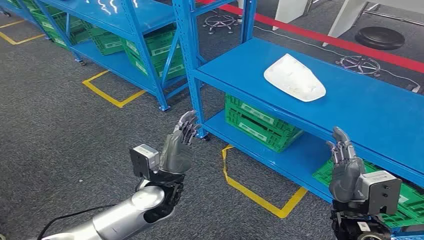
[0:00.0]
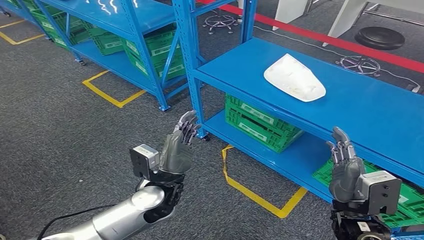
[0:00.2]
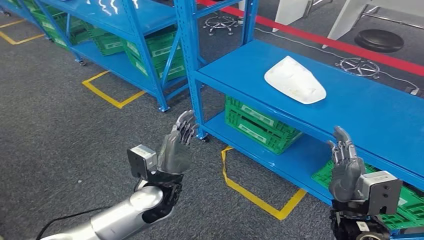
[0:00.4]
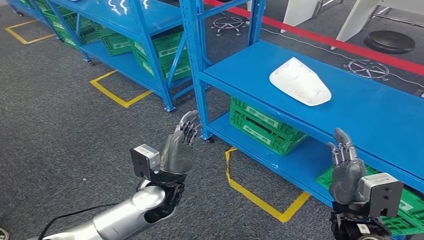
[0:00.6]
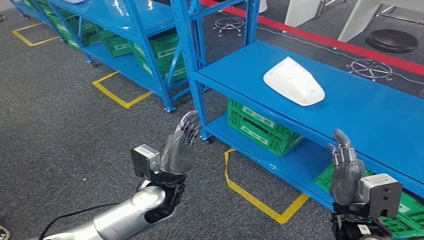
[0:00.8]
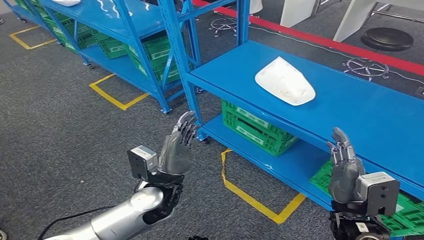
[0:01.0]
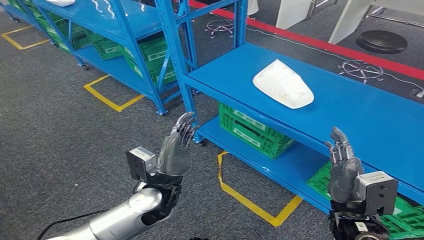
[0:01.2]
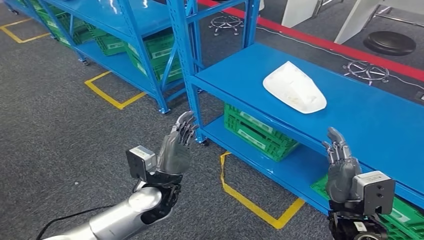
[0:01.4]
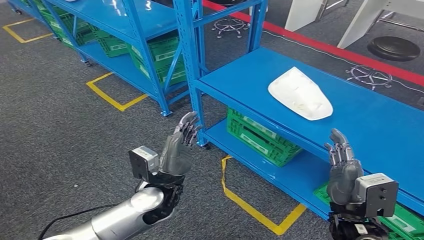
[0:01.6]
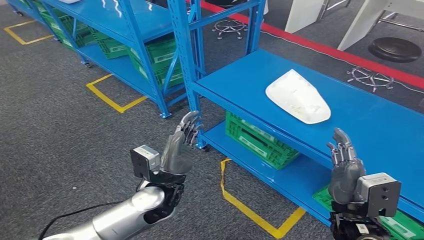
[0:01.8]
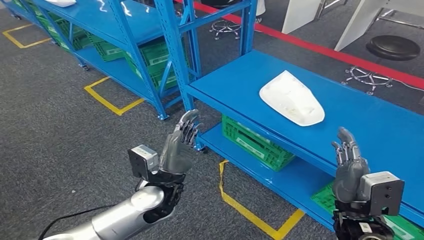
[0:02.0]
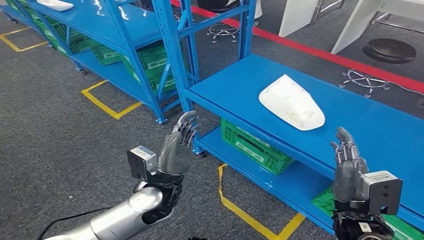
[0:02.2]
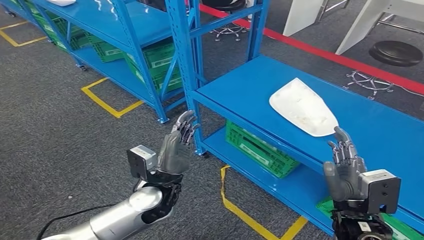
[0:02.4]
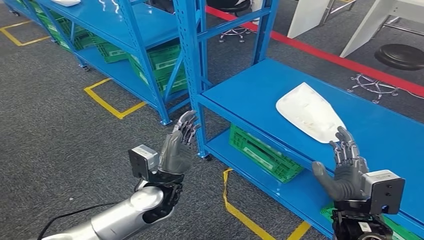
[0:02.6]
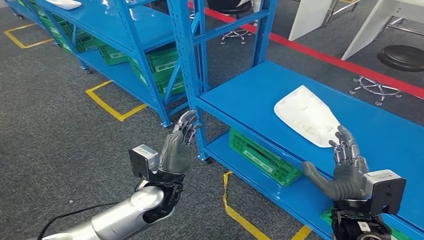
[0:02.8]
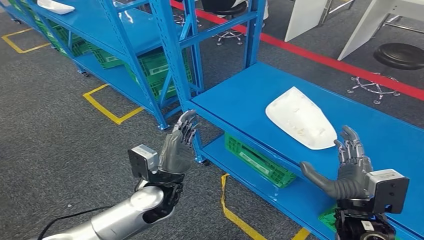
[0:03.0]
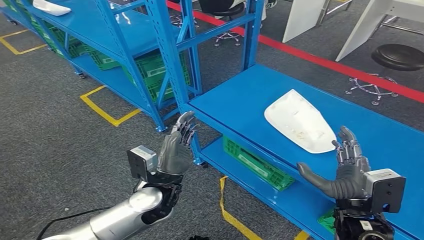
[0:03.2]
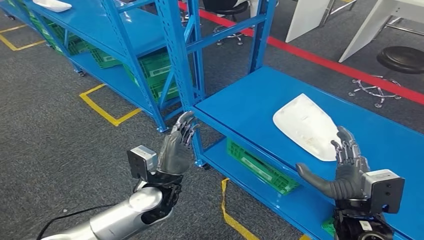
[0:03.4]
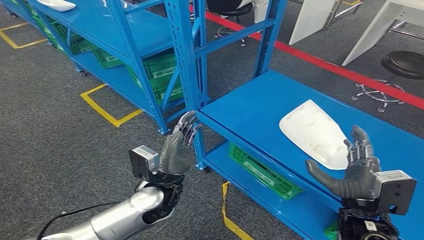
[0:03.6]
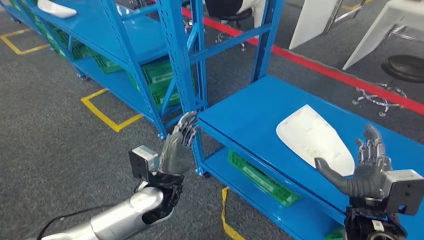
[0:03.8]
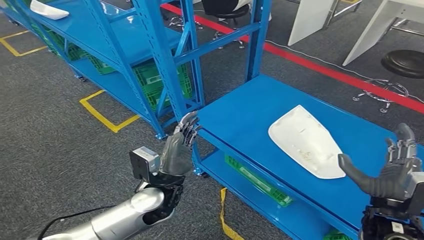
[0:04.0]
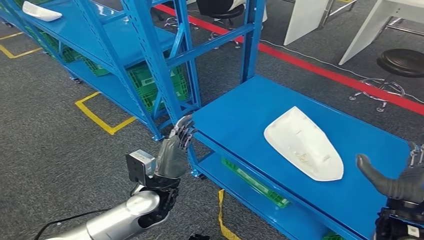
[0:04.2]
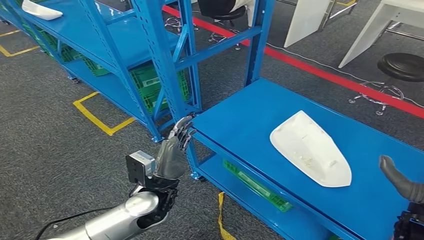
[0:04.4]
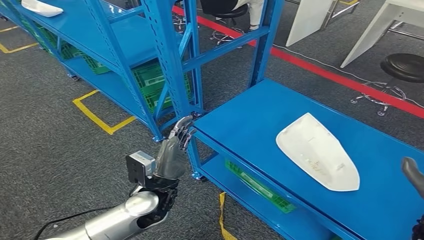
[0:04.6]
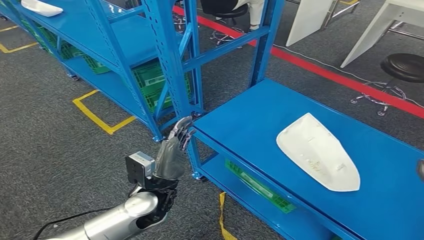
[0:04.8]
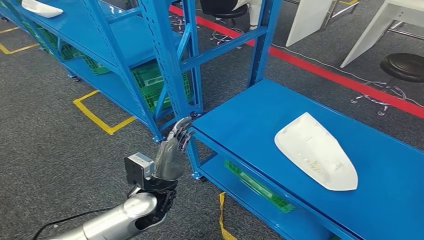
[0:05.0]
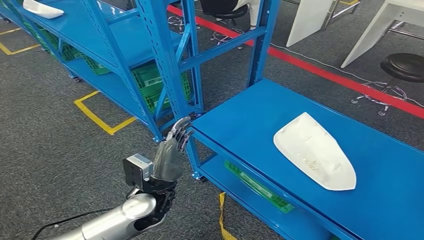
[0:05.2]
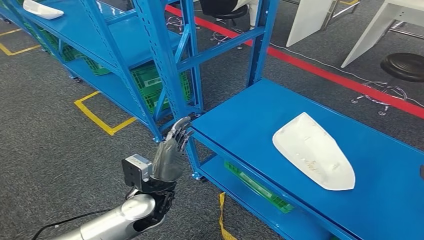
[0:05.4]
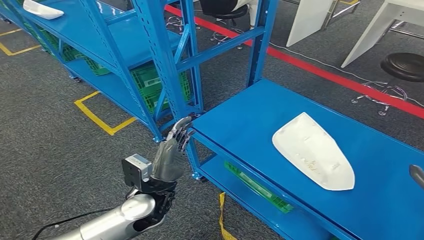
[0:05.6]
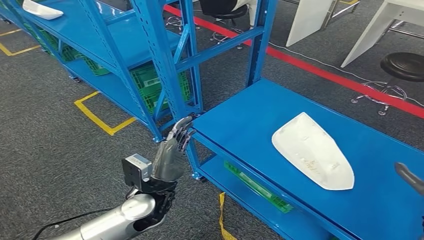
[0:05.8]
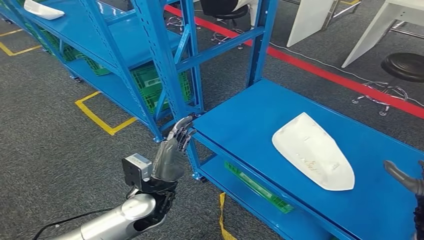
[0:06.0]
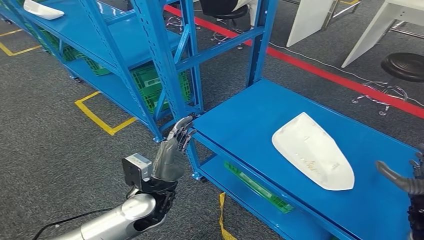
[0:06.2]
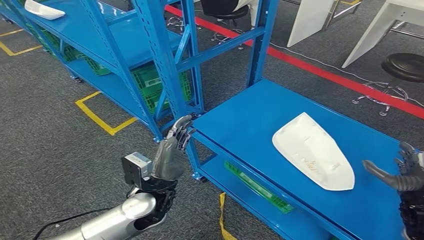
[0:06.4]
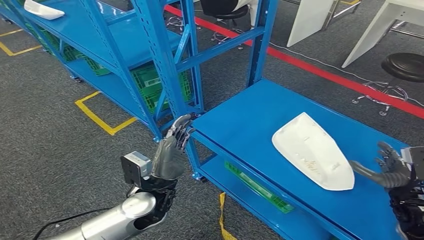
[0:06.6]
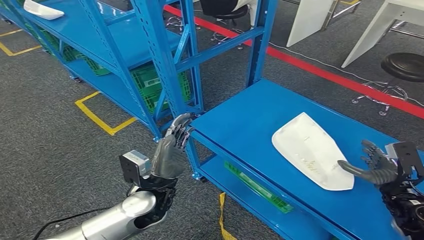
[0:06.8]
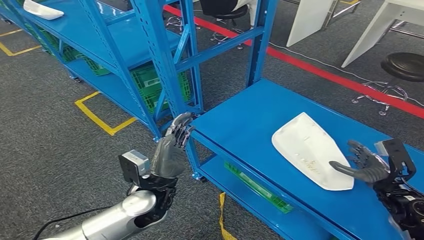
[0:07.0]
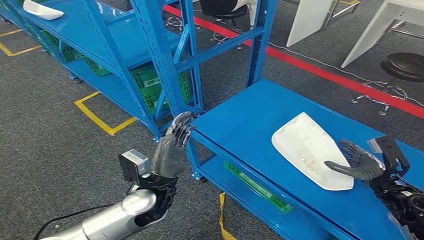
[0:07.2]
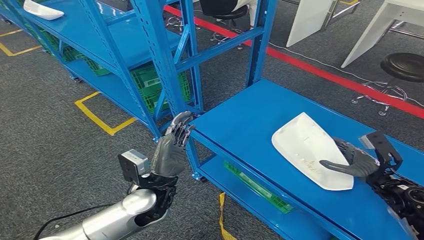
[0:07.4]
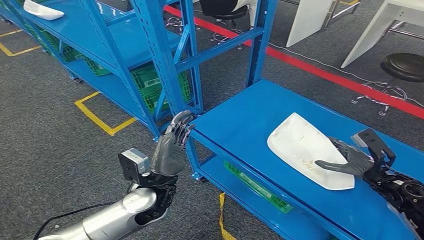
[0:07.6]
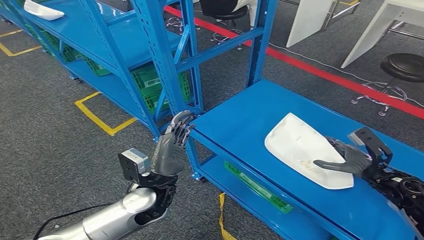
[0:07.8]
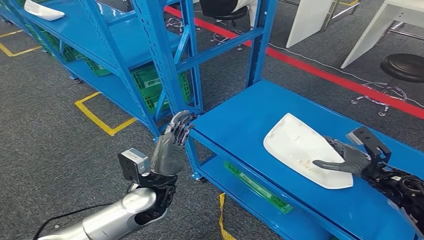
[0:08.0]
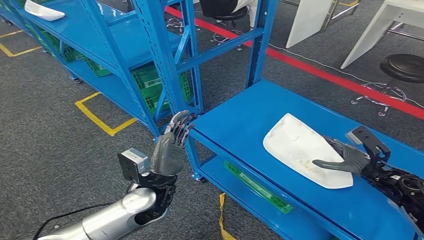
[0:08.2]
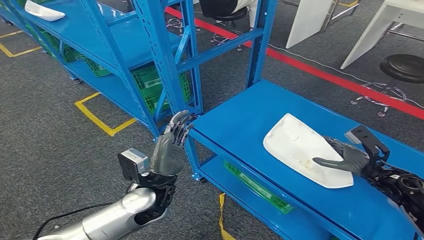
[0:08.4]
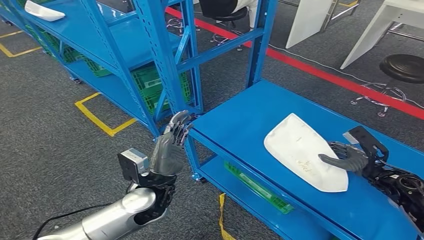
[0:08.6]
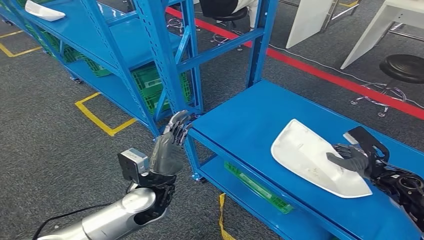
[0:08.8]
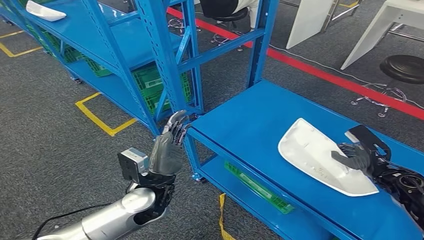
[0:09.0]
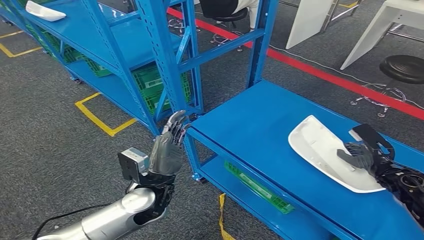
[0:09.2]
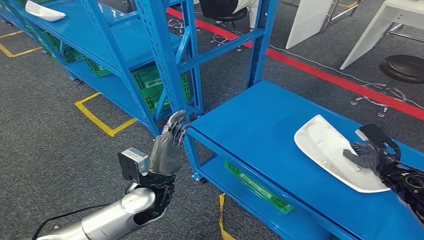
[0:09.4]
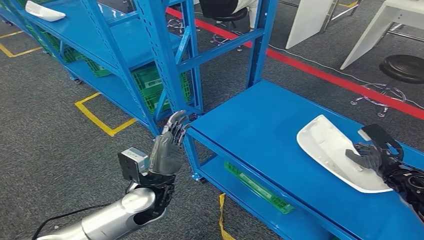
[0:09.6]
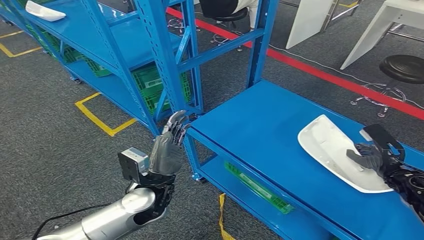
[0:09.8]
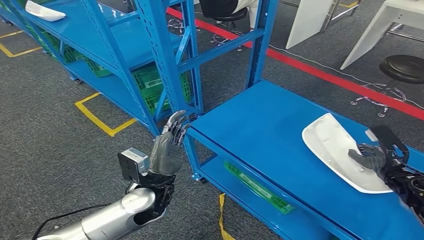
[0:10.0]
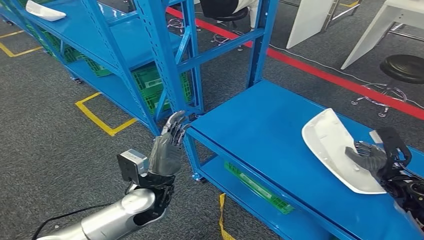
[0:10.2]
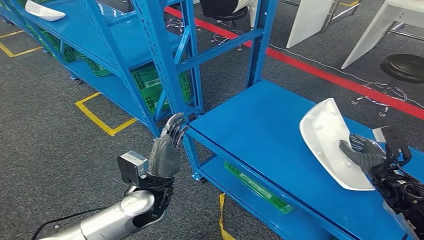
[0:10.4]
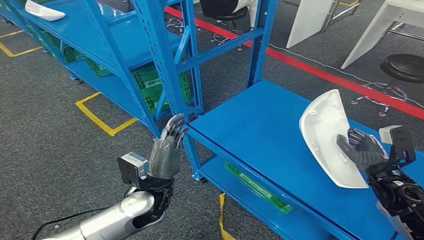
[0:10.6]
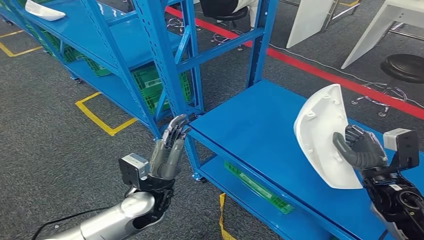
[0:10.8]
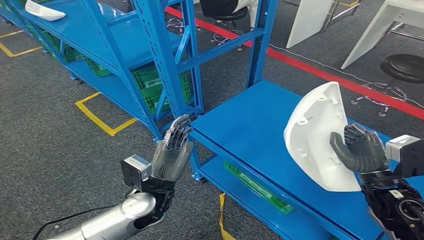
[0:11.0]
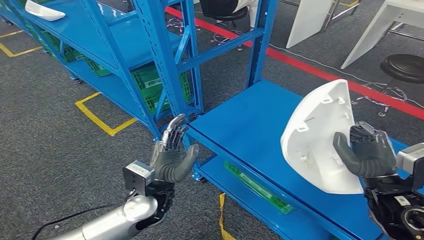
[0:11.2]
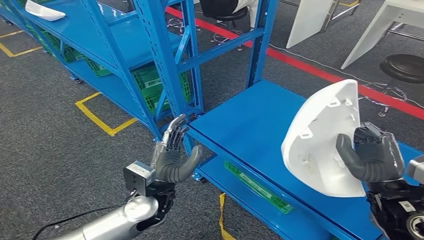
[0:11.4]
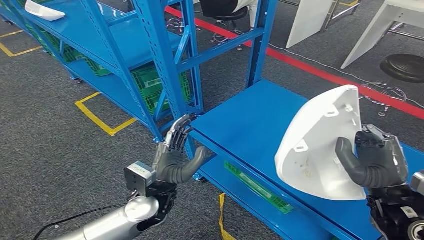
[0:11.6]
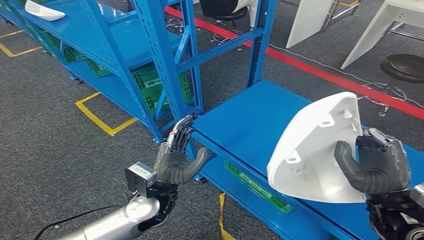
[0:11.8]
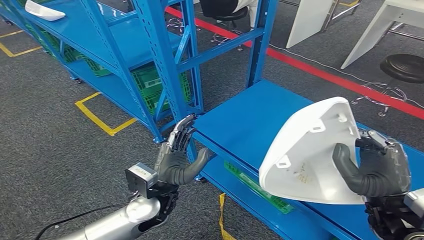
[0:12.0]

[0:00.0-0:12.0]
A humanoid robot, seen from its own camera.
Step, 0:00.0 to 0:09.2: Pick up the small component from the shelf.
0:04.4 to 0:06.0: The right hand shifts roughly 10 cm to the right and downward.
0:06.0 to 0:07.6: The right hand travels forward by some 10 cm.
0:07.6 to 0:09.0: The hands make only small movements.
0:10.4 to 0:12.0: The right hand travels backward, upward and to the left by approximately 20 cm.

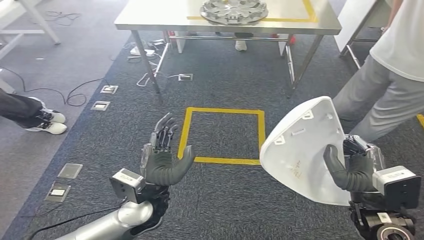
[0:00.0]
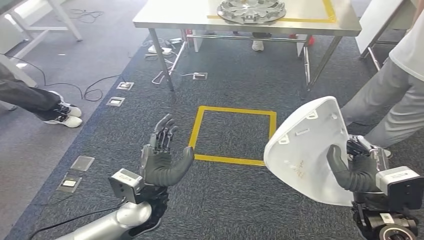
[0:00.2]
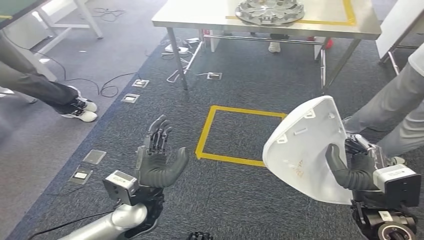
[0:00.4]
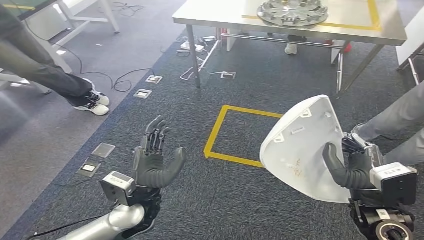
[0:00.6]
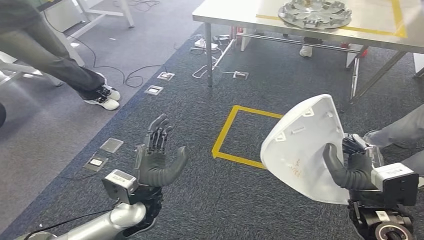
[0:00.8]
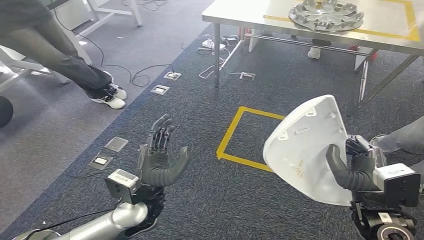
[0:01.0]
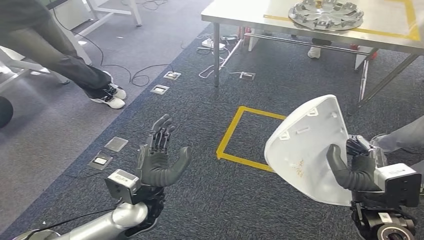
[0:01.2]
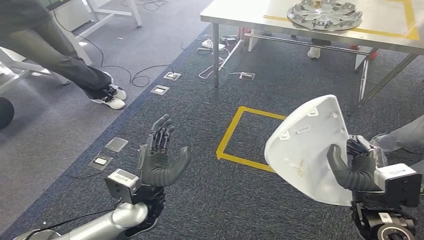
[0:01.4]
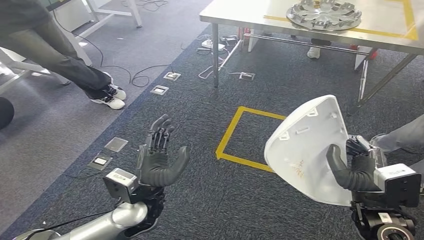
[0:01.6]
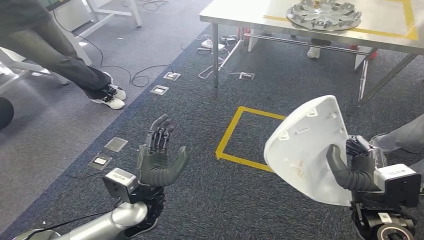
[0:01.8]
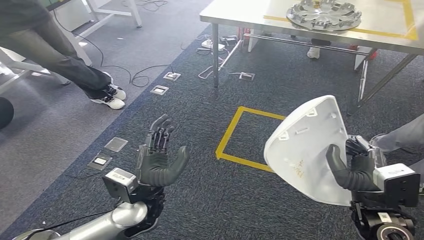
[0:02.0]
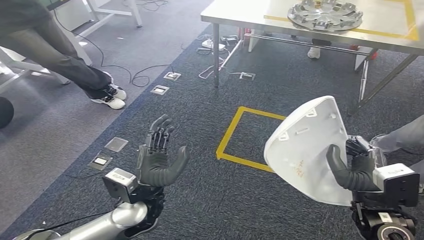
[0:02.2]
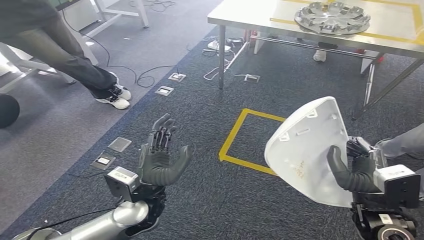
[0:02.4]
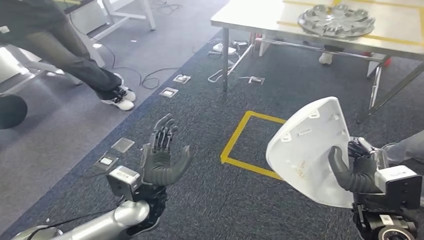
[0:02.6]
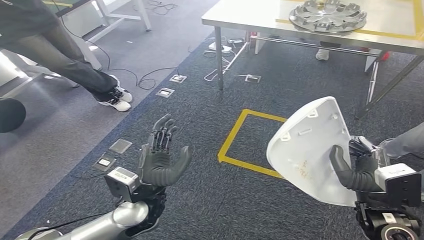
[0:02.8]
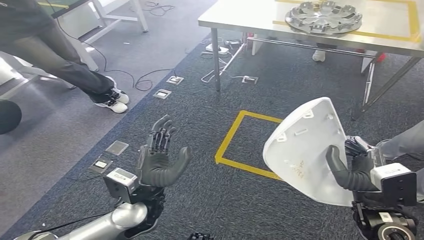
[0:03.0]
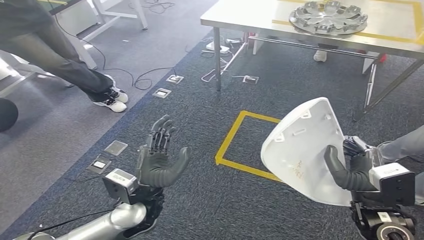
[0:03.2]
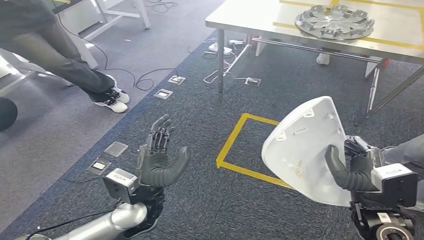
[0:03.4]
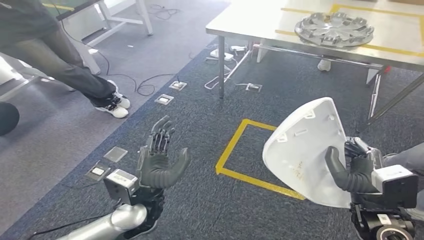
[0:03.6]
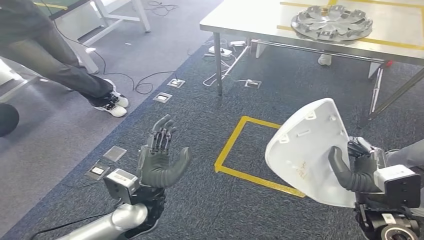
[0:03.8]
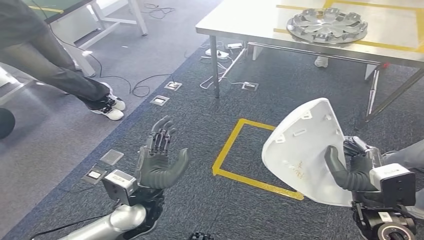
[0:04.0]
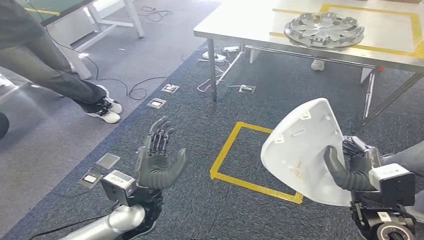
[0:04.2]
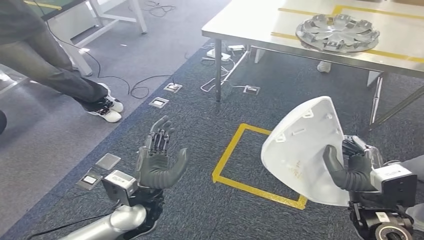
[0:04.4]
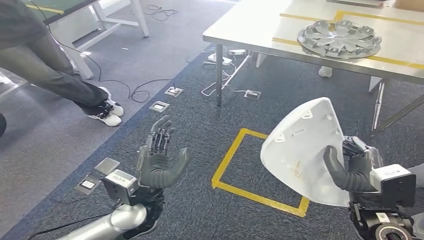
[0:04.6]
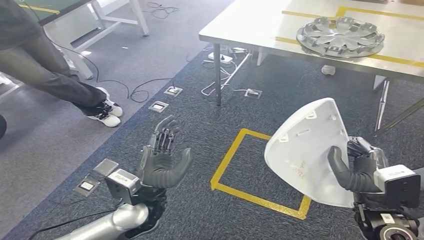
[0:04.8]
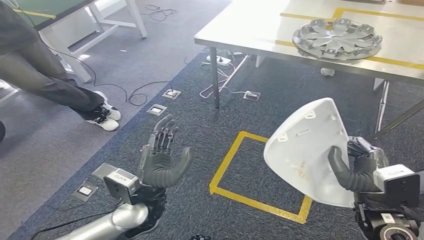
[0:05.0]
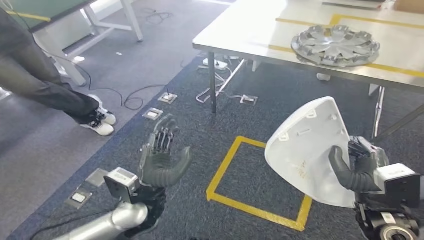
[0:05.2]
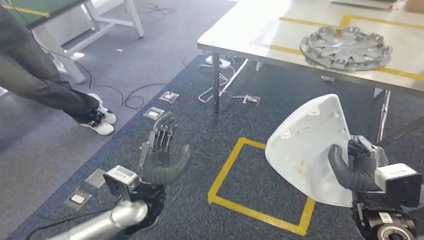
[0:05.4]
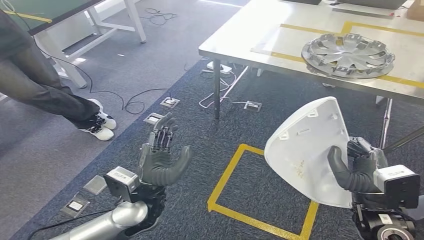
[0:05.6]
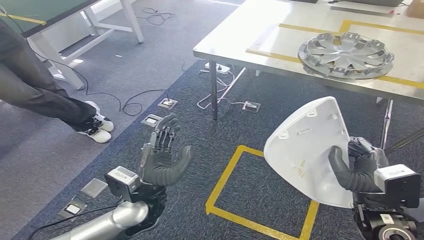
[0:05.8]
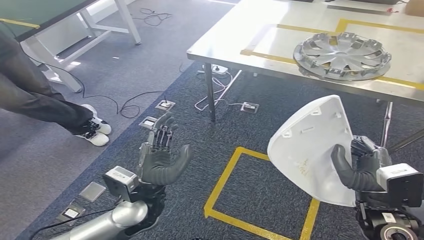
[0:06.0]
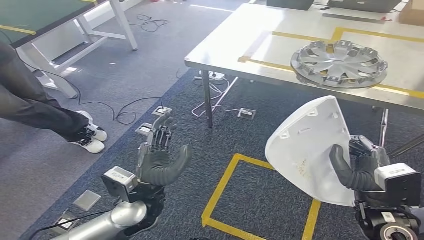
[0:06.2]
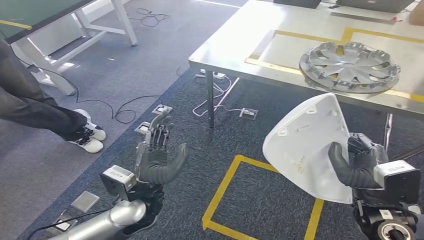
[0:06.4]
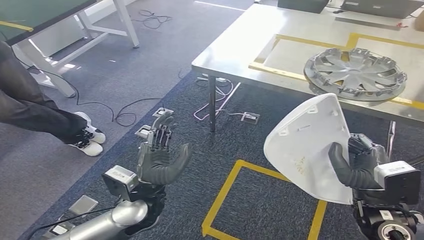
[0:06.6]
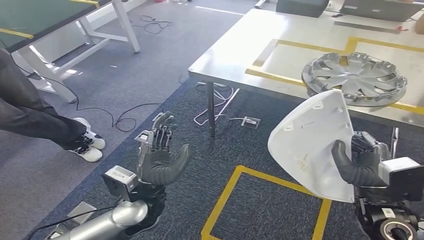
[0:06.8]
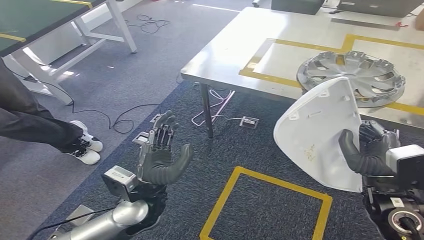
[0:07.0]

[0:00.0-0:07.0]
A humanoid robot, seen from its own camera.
0:01.4 to 0:02.8: Both hands stay put.
